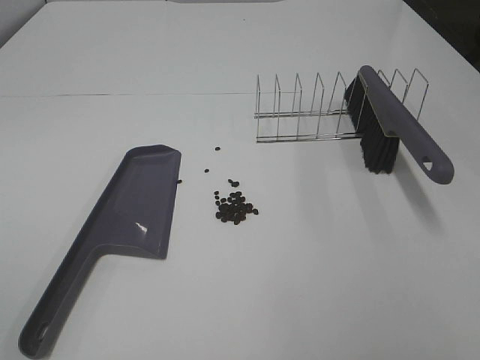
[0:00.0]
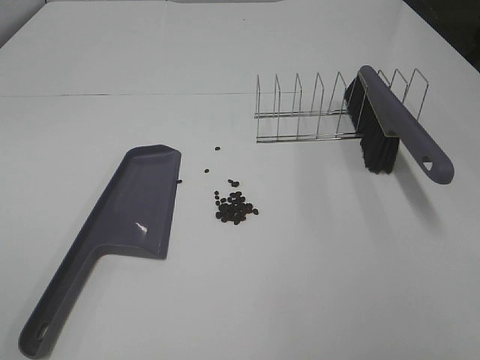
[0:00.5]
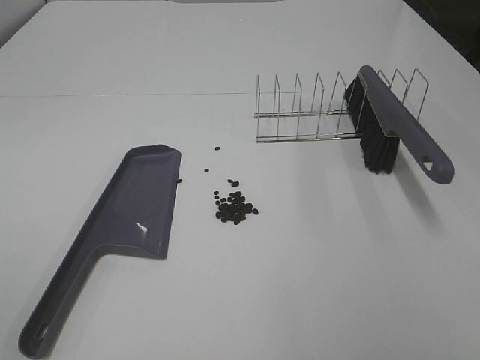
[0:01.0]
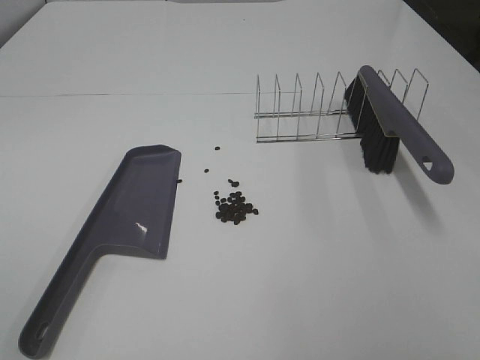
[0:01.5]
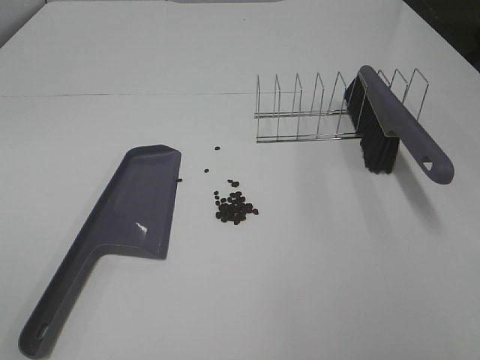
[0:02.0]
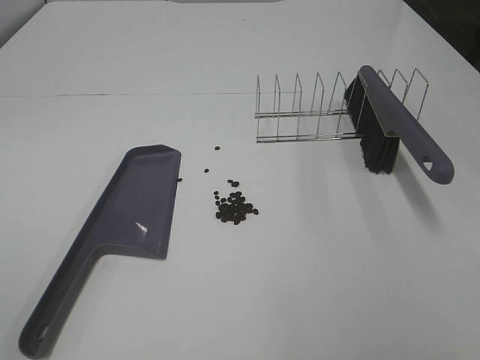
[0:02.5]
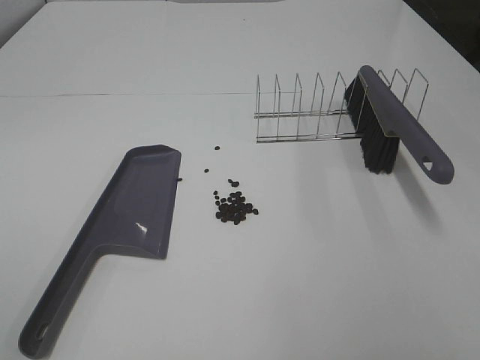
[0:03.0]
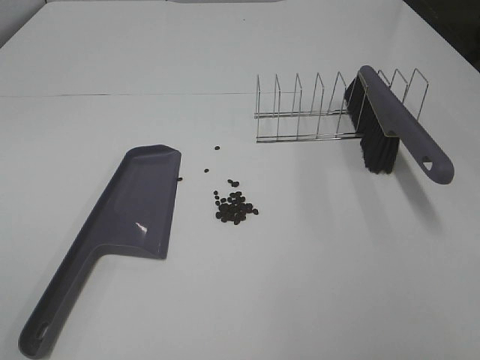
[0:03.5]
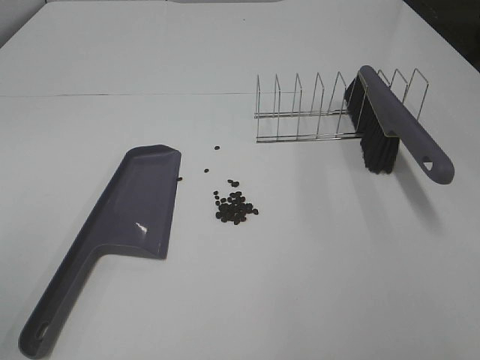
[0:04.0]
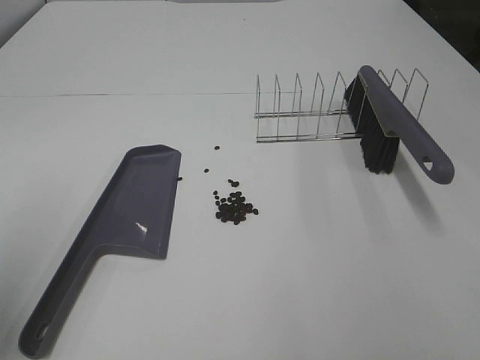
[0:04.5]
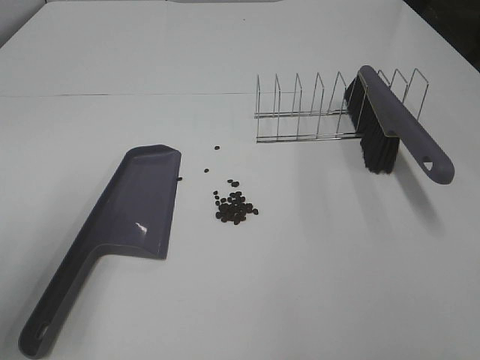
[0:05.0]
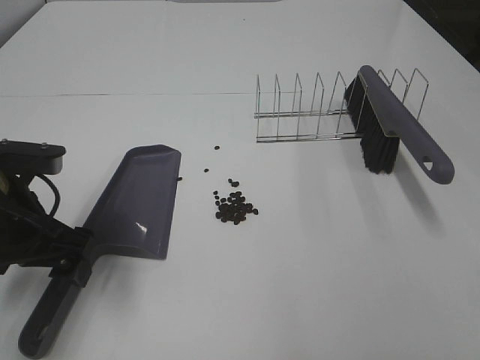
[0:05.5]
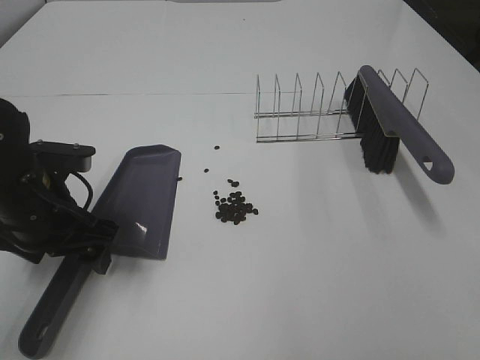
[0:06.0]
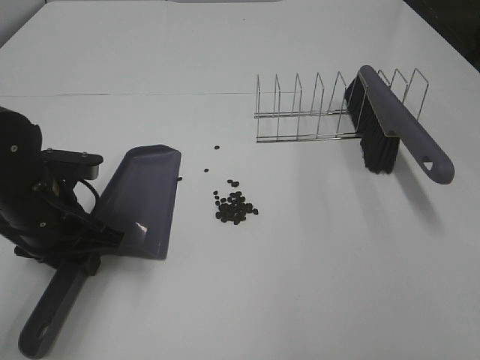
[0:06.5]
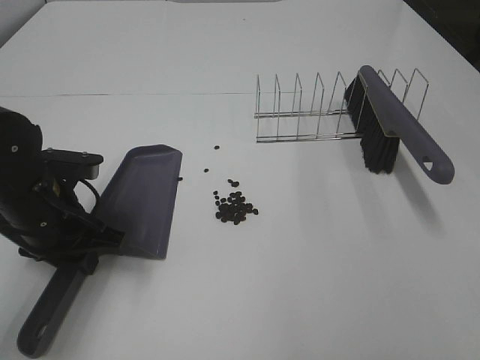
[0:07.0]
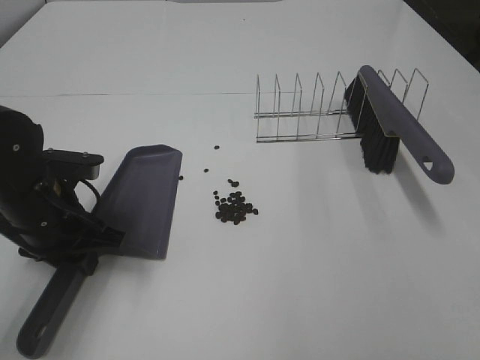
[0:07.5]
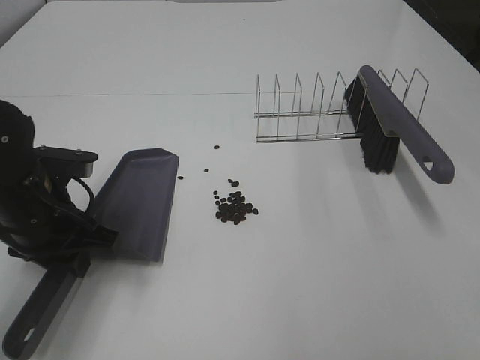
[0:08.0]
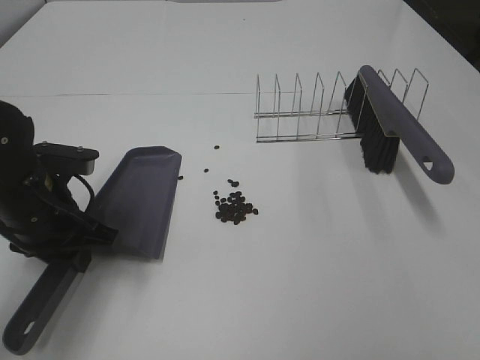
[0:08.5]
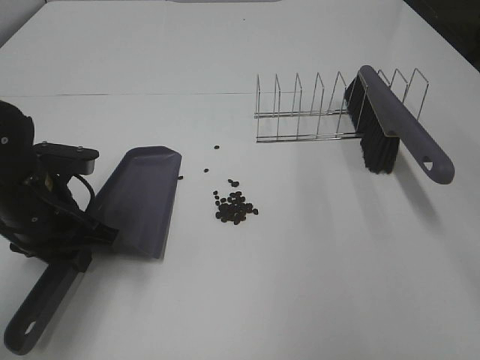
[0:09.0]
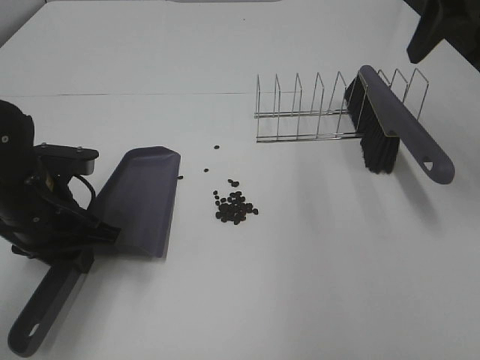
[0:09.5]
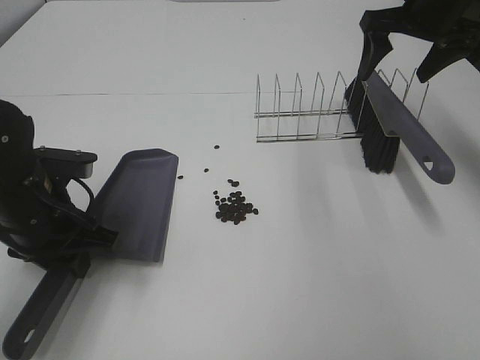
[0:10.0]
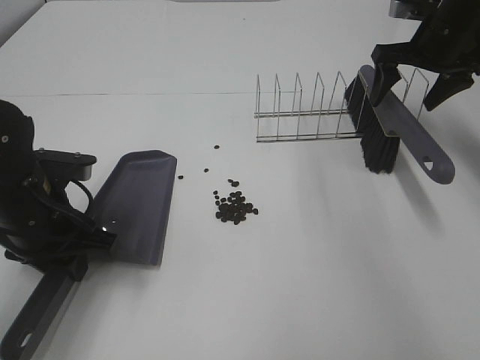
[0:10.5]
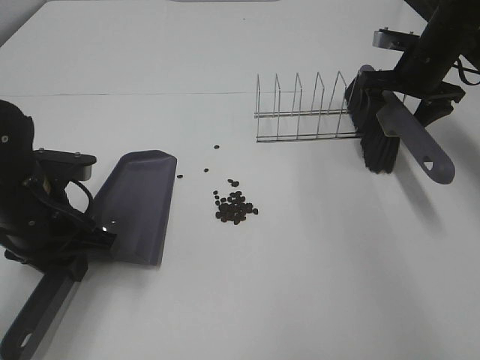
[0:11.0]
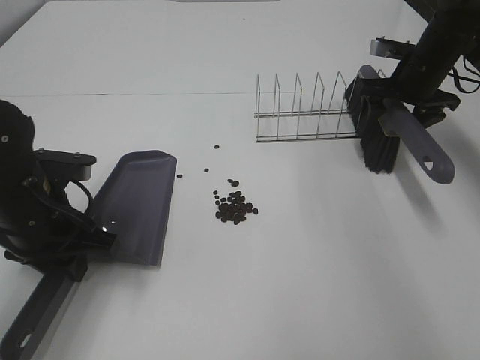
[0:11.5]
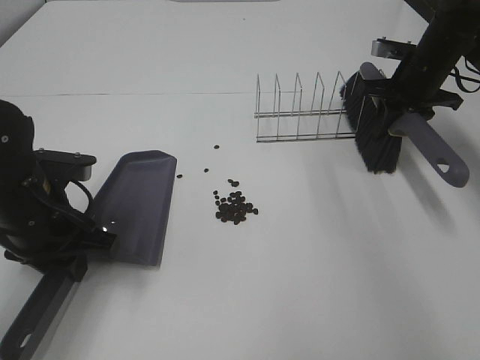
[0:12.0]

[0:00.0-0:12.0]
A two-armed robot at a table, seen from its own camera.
Task of the whole recording: Sweep Coffee Bean.
Step, 0:00.0 to 0:06.5: Left hand: grab the dustpan.
Step, 0:08.5 to 0:11.5: Right hand:grab the broom.
0:00.0 to 0:02.0: The two grippers keep their place.
0:04.0 to 0:06.0: The left gripper moves forward, downward and to the right, about 30 cm.
0:06.0 to 0:08.0: The left gripper closes.
0:08.0 to 0:10.0: The right gripper goes about 50 cm forward, and opens up.
0:10.0 to 0:12.0: The right gripper is displaced downward by approximately 10 cm, and closes up.

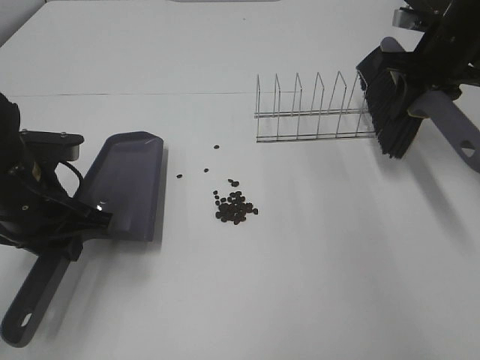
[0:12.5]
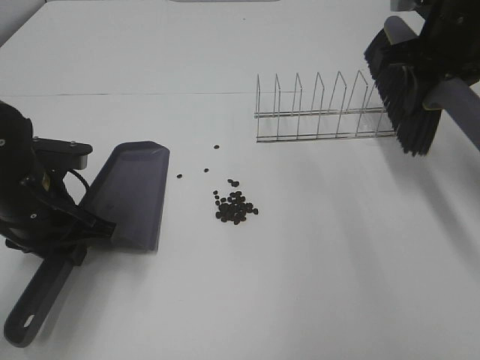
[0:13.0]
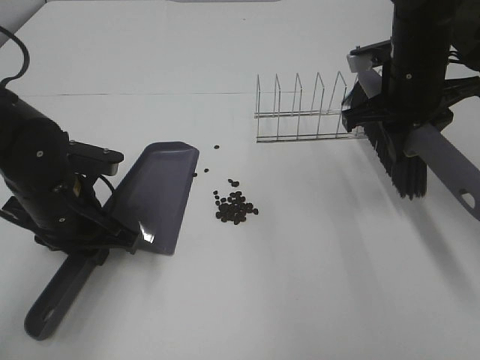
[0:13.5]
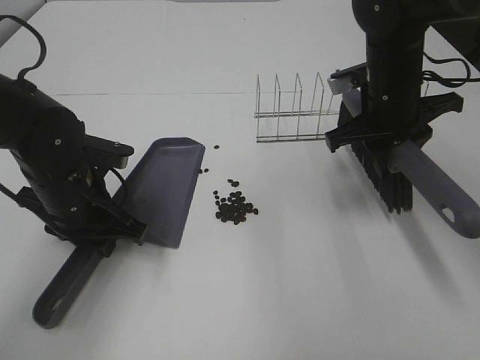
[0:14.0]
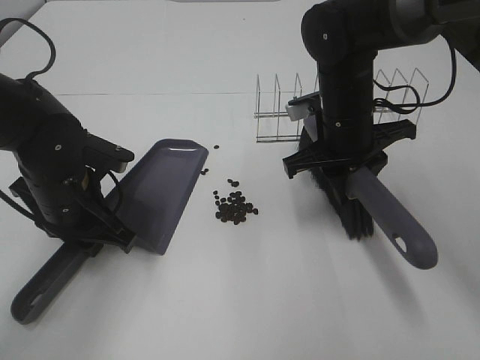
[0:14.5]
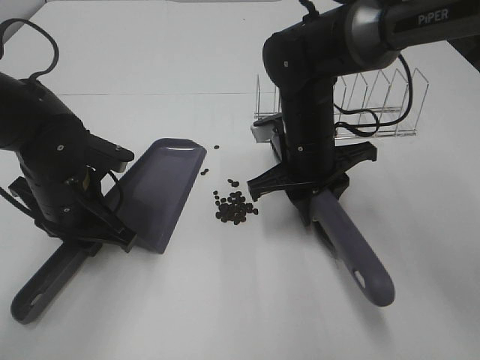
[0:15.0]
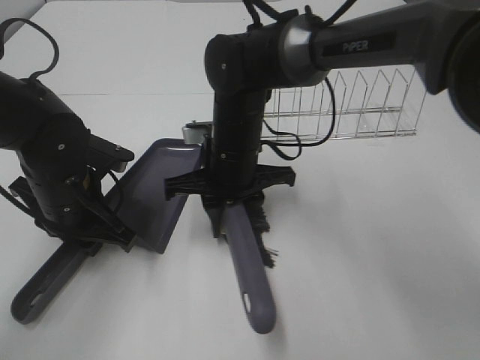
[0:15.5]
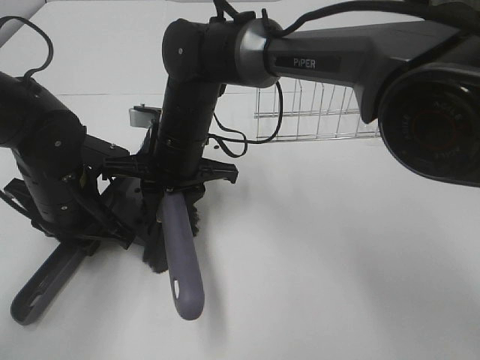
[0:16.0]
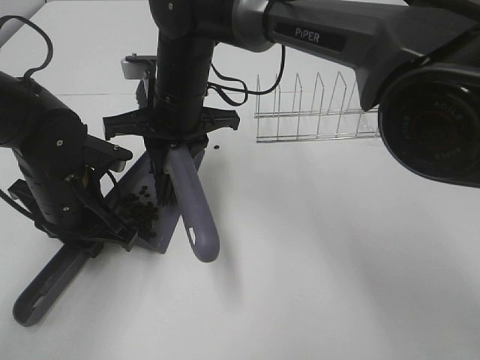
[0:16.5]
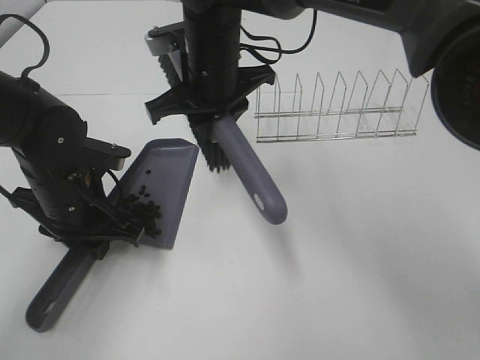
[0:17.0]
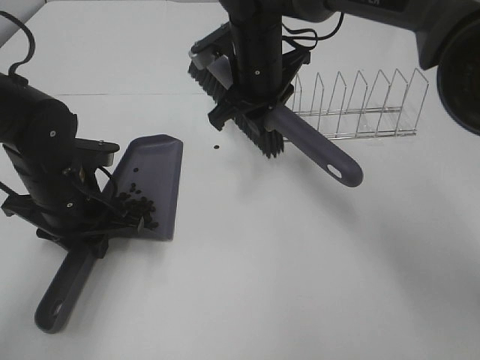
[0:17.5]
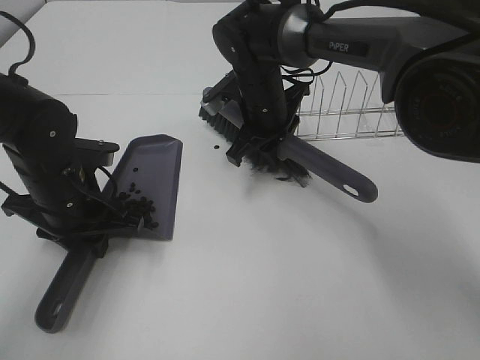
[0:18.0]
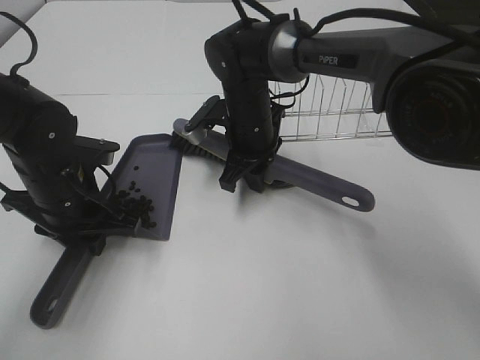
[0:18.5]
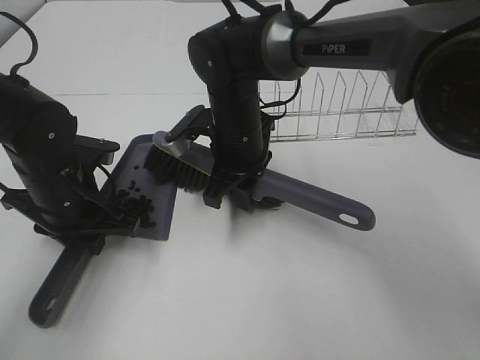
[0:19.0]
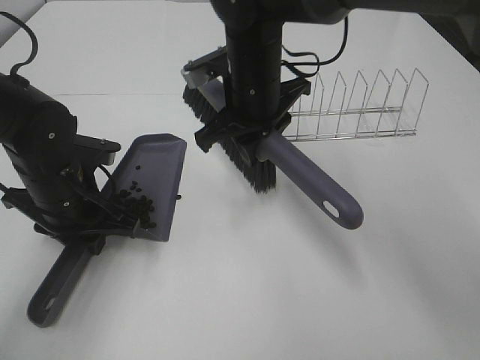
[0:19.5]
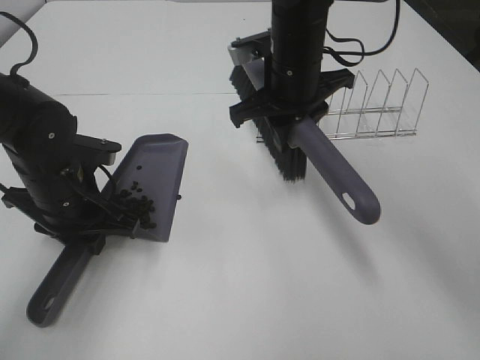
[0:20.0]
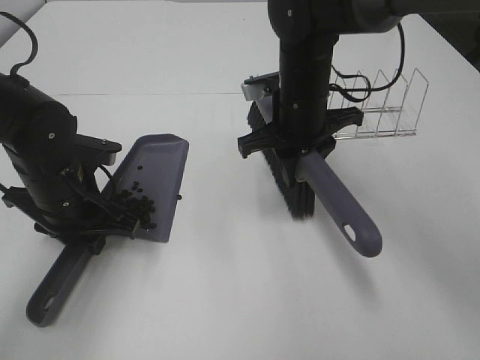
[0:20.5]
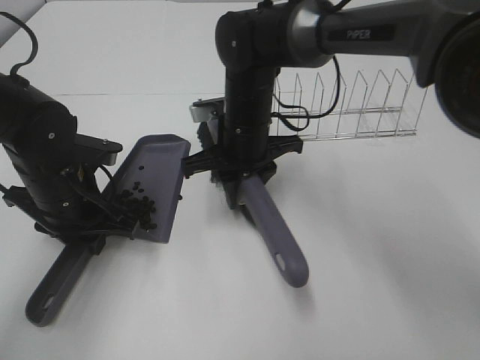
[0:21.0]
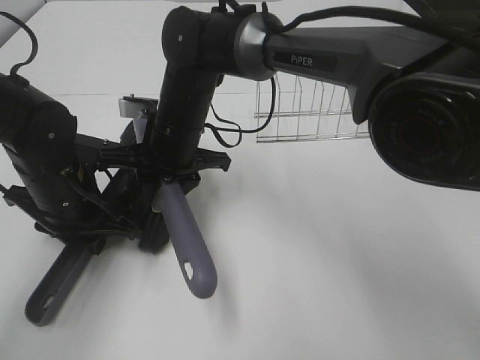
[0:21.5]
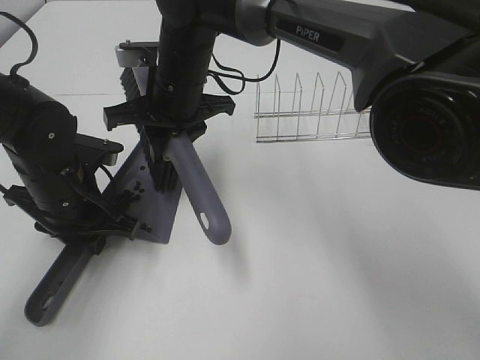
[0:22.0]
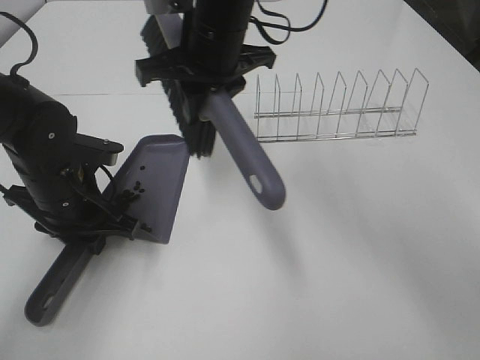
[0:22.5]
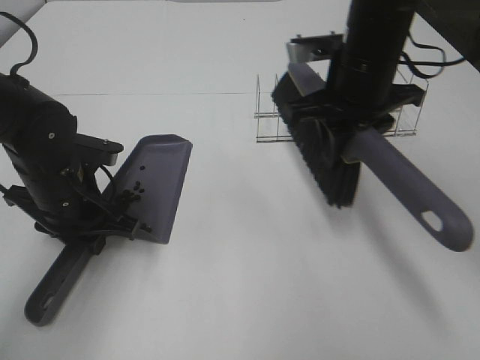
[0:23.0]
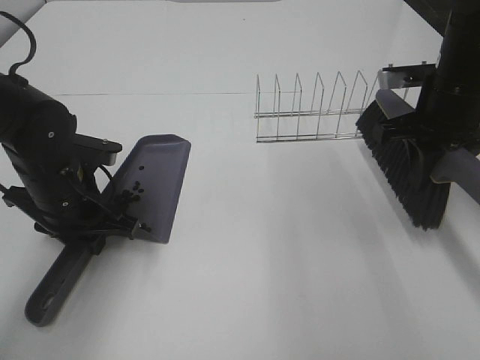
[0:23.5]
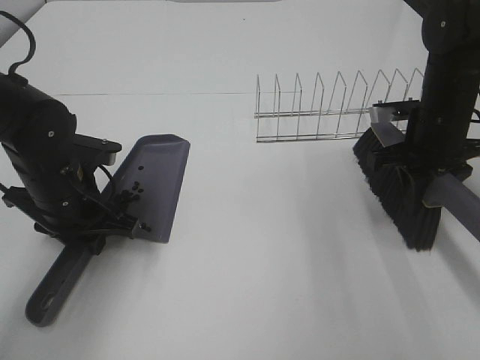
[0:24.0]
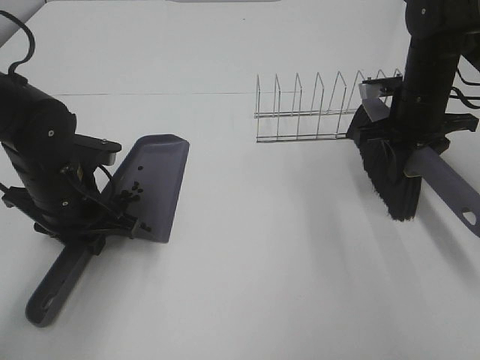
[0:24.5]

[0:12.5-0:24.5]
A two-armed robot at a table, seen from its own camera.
Task of the whole recording: Sweep Coffee Bean.
Step, 0:12.5 to 0:22.0: Right hand:sweep the coffee beans into the dustpan.
0:12.5 to 0:14.5: The left gripper ends up approximately 5 cm from where it was; the right gripper travels to the left and backward by some 15 cm.
0:14.5 to 0:16.5: The right gripper travels to the left by some 20 cm.
0:16.5 to 0:18.5: The right gripper shifts approximately 10 cm to the right and downward.
0:18.5 to 0:20.5: The right gripper moves to the right and upward, some 10 cm.
0:20.5 to 0:22.5: The right gripper heads to the left and upward, covering approximately 15 cm.
0:22.5 to 0:24.5: The right gripper goes about 25 cm to the right.

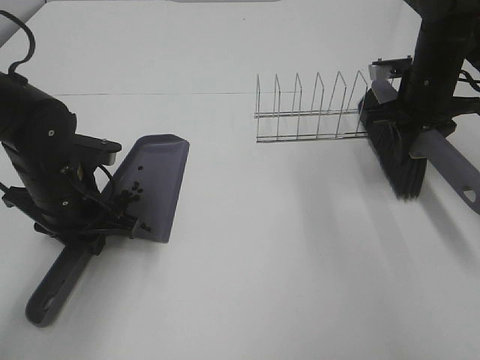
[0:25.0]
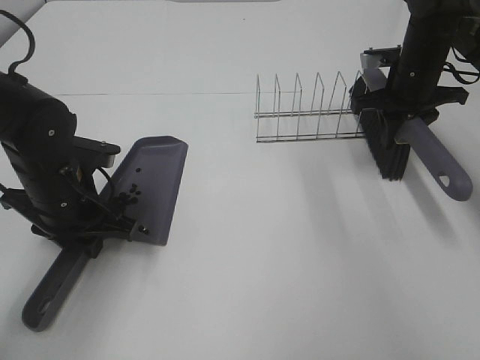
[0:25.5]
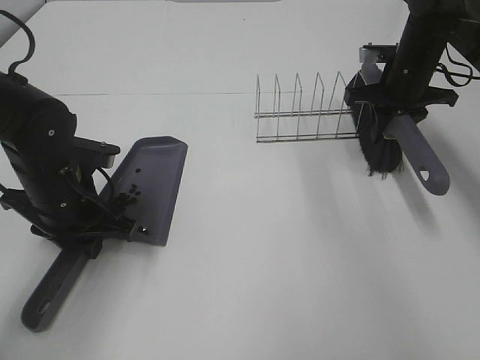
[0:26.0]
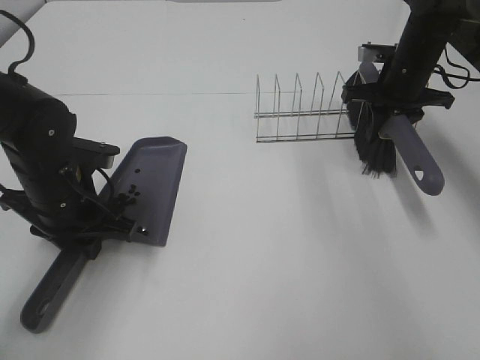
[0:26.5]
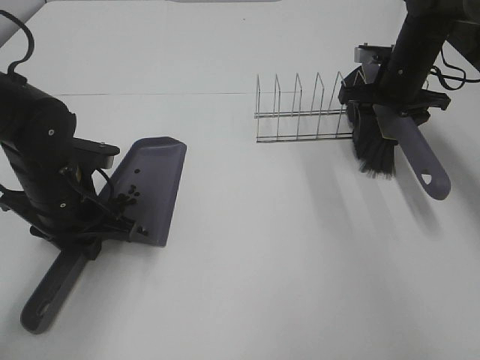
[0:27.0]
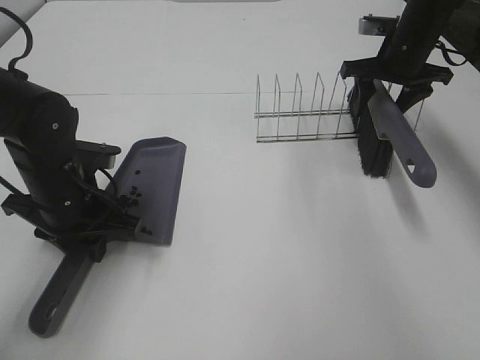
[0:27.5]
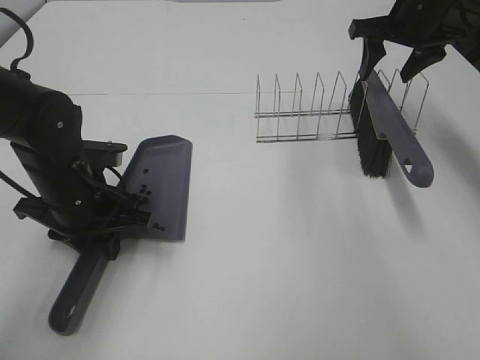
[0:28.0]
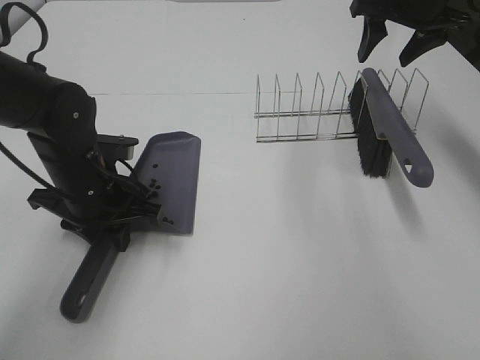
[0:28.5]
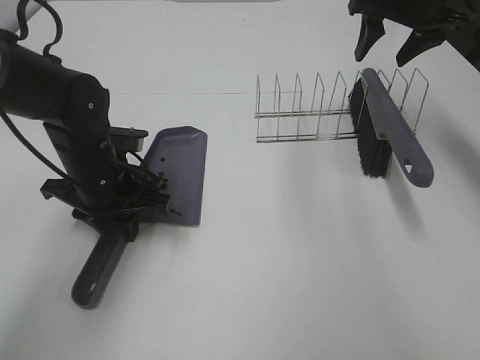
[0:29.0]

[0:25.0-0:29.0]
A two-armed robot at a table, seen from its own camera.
Task of the whole recording: Sweep Coffee Bean.
Step, 0:25.0 to 0:27.0: Right hand:place the broom on the rack.
0:25.0 to 0:27.0: The right gripper moves forward, about 5 cm, and opens.
0:27.0 to 0:29.0: The right gripper heads upward, covering about 10 cm.
